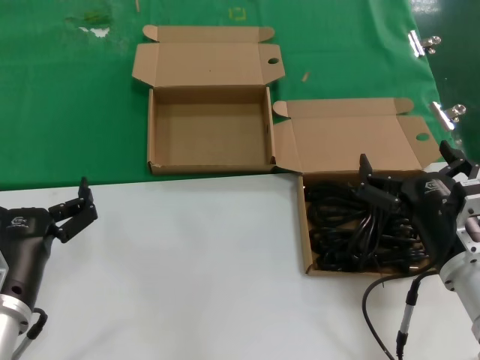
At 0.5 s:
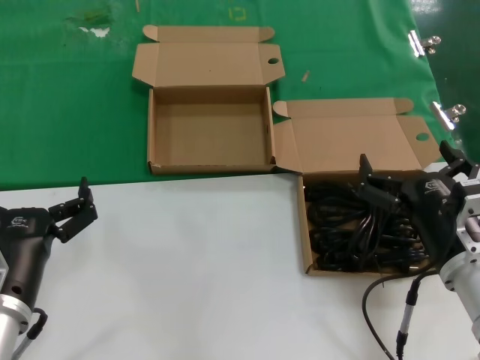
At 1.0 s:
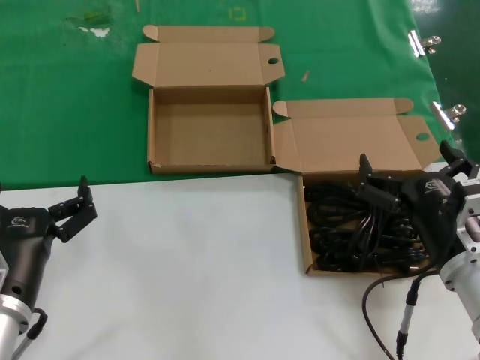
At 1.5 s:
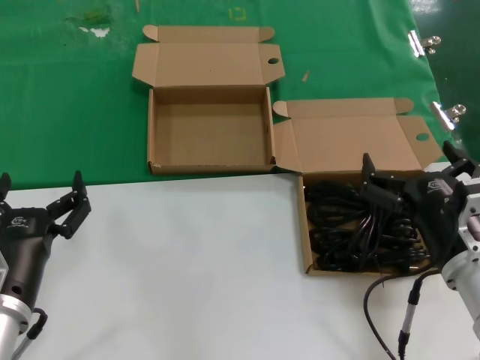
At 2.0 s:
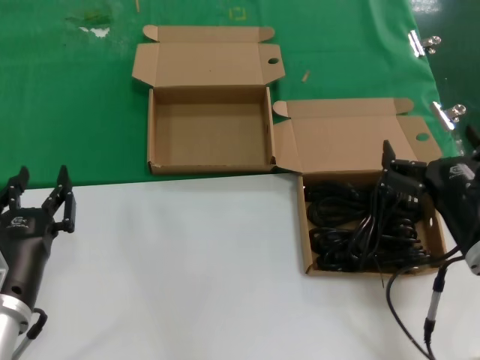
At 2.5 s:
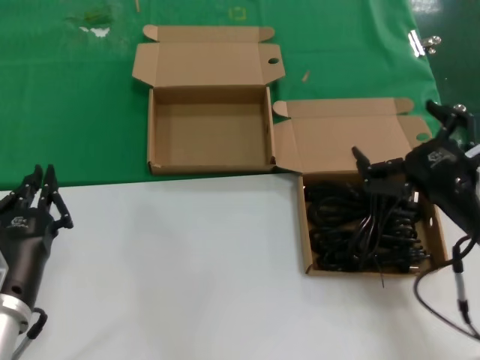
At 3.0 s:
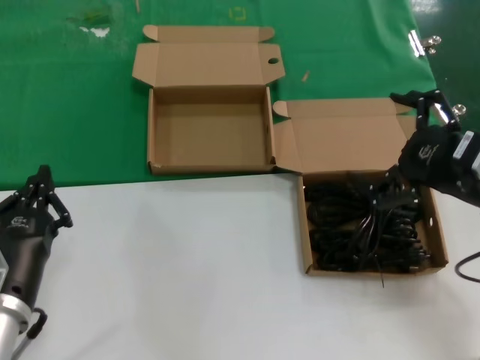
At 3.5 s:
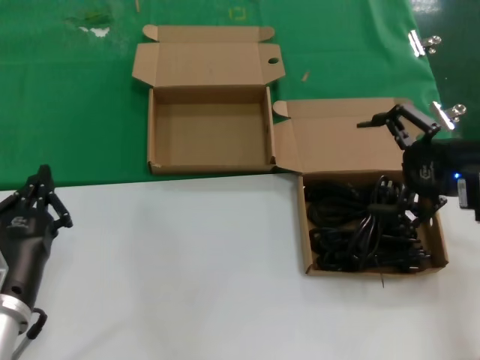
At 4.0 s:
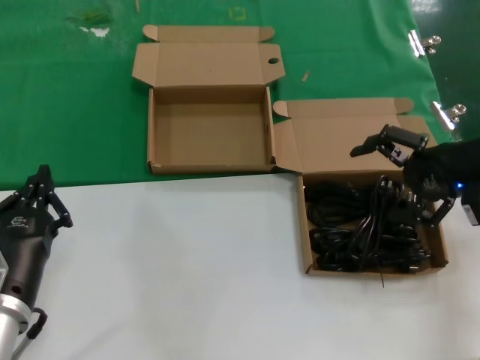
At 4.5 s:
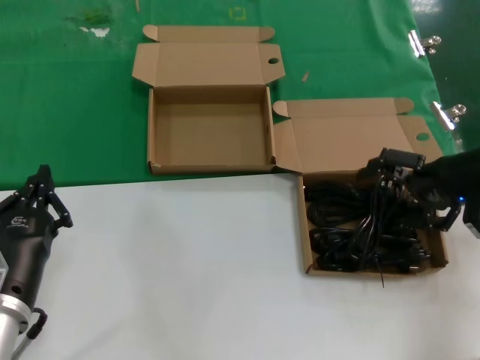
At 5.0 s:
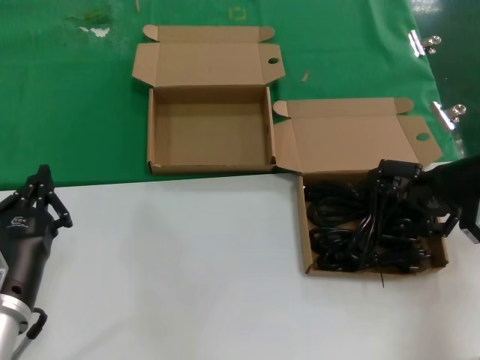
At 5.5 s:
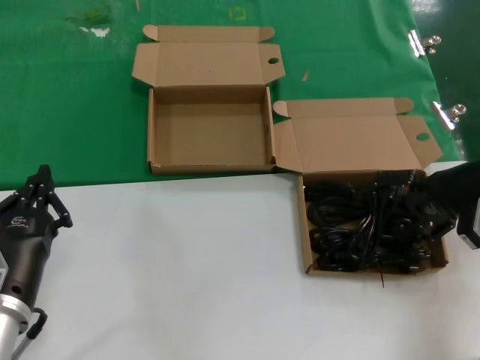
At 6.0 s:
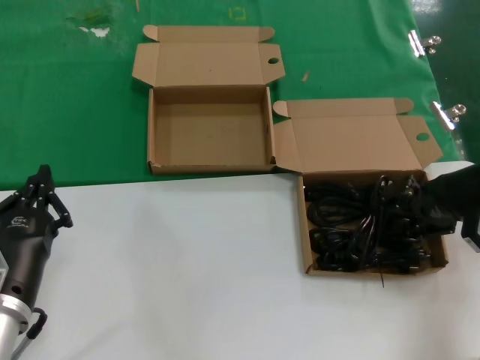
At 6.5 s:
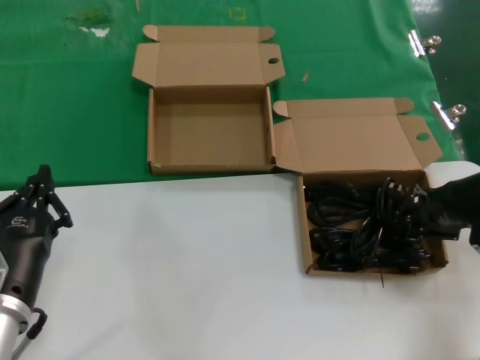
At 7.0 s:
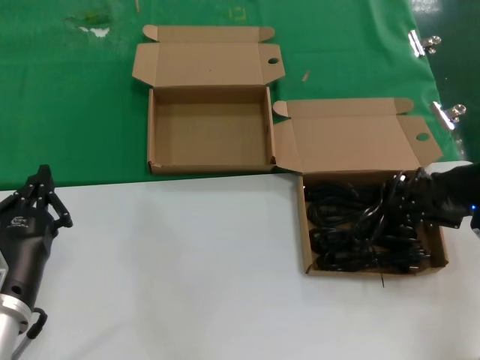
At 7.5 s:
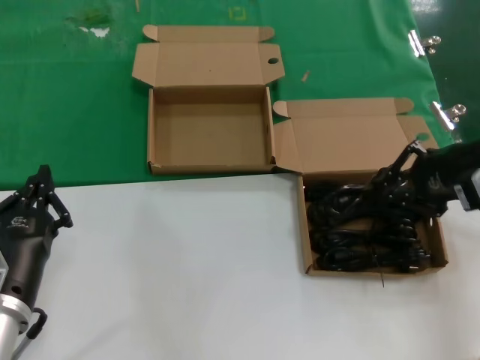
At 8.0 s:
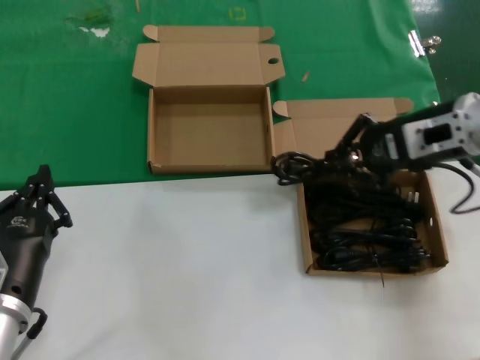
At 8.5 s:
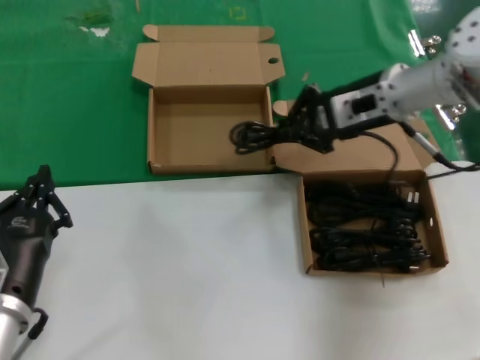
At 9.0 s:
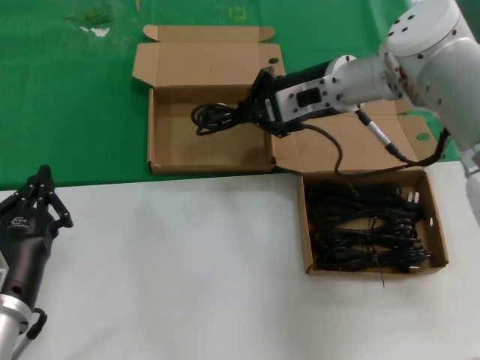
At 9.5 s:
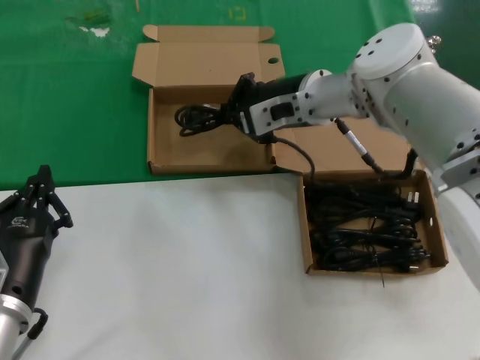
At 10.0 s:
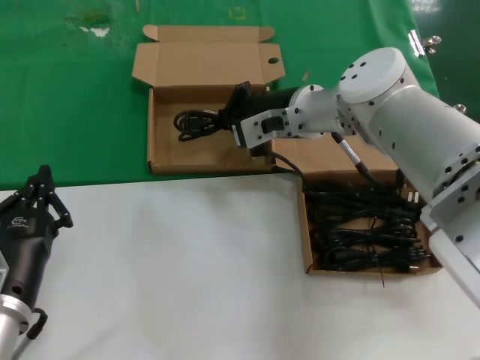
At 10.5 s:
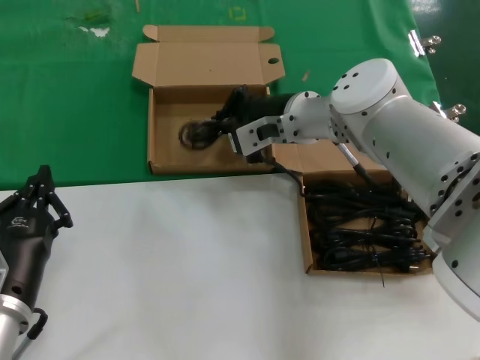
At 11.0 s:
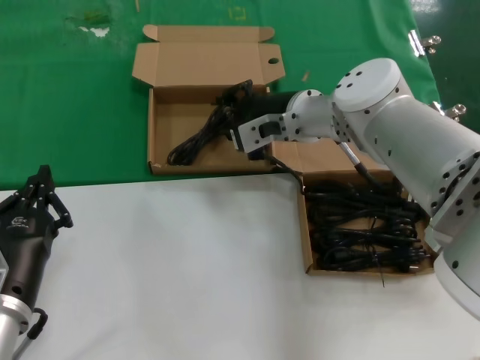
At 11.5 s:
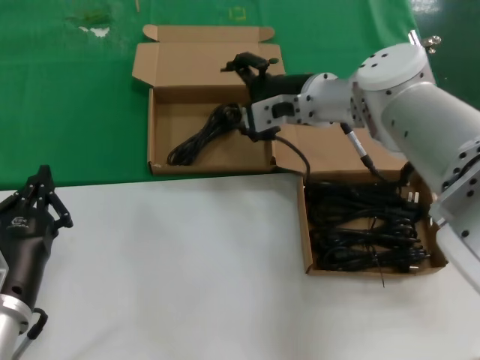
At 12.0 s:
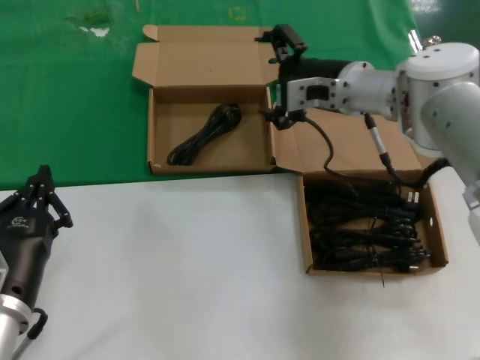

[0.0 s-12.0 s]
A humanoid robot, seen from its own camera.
Task of the whole recording: take the parts from the box containing them and put them into an empty box.
Step, 0.0 to 6.5 s: Grasp the data cable.
Step, 7.0 to 10.5 s: Place the data cable in the another box.
0.0 to 2.0 s: There are only small adjustments of the hands.
2.0 to 4.0 s: The right hand heads upward, forward and to the right, covering approximately 20 cm.
4.0 to 6.0 s: The right hand changes place by about 5 cm.
6.0 to 8.0 s: The right hand is displaced to the left and upward by about 10 cm.
8.0 to 10.0 s: The right hand goes about 20 cm to the left and forward.
10.0 to 12.0 s: The right hand moves to the right, about 5 cm.

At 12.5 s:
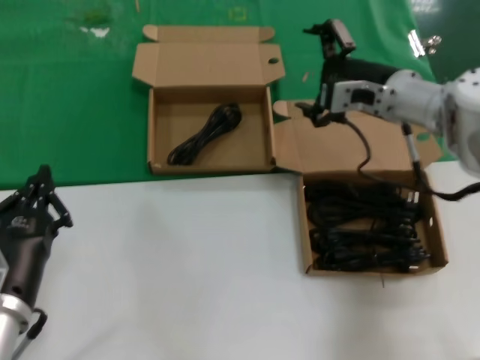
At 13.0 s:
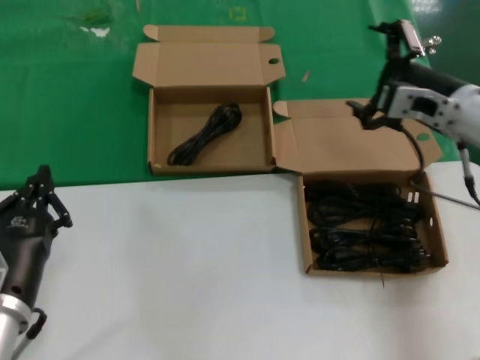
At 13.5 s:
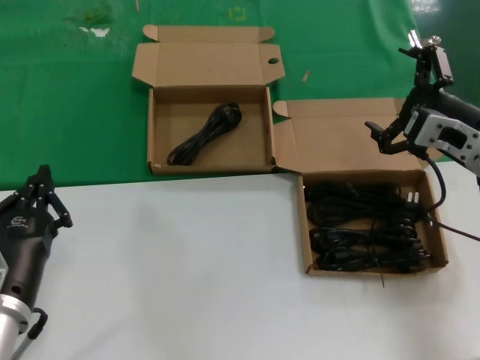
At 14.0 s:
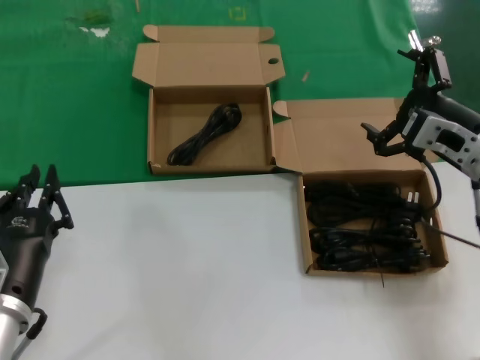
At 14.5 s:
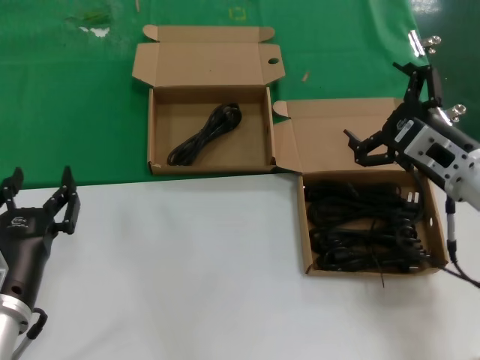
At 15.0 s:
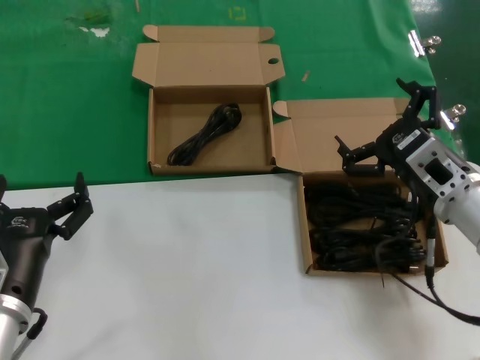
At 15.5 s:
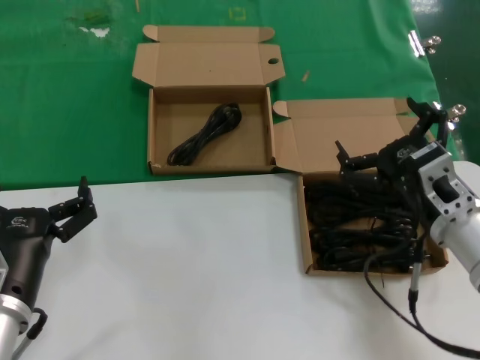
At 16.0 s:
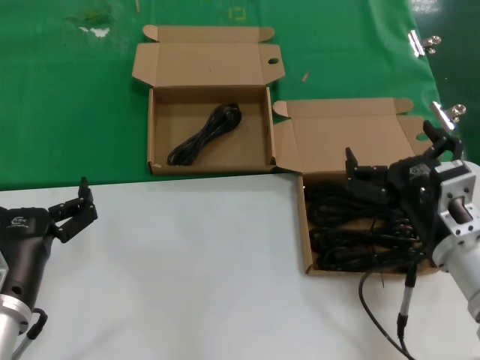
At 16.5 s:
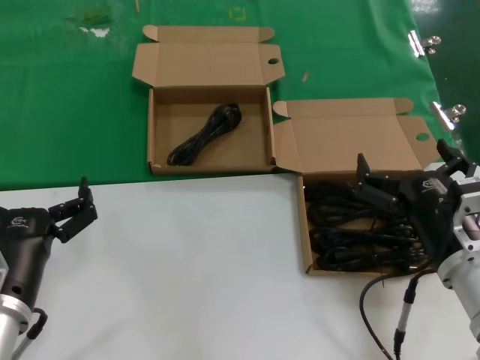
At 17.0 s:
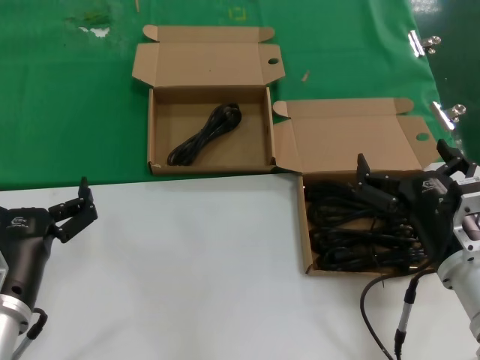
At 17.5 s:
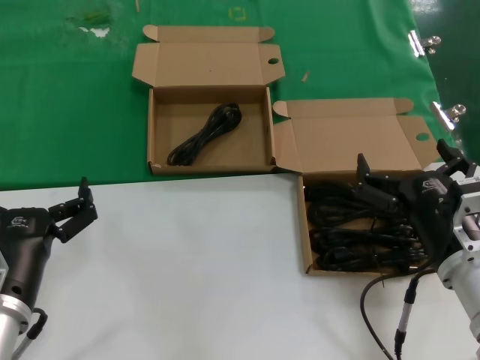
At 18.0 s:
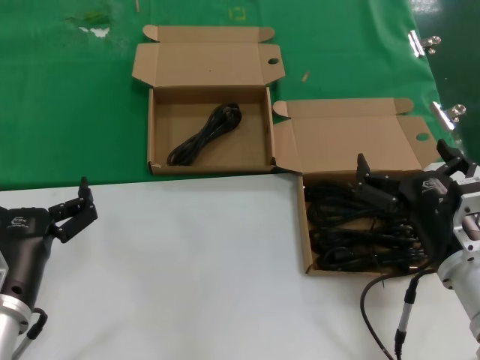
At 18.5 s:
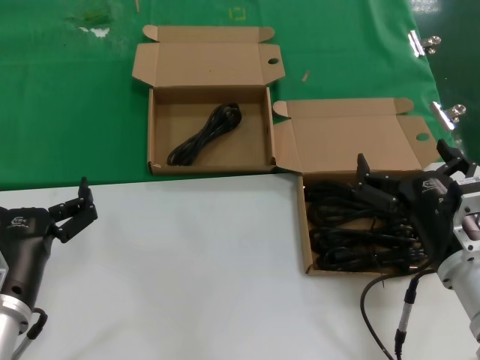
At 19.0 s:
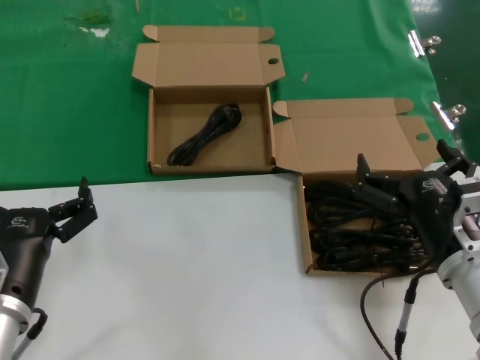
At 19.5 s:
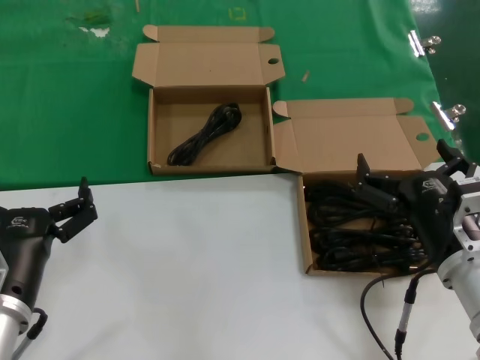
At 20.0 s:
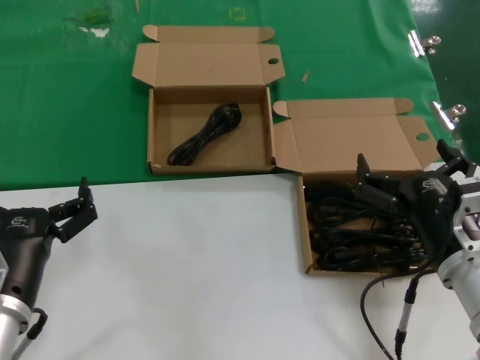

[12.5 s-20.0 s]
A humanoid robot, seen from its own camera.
Task of the whole recording: take the parts from the box containing them and put them into an empty box.
12.5 to 14.5 s: The right hand shifts roughly 15 cm backward.
14.5 to 16.5 s: The right hand goes about 15 cm backward, downward and to the left.
16.5 to 20.0 s: Both hands stay put.

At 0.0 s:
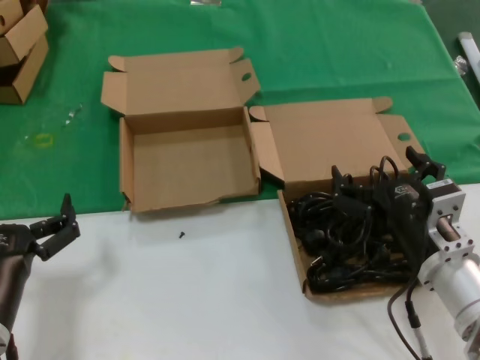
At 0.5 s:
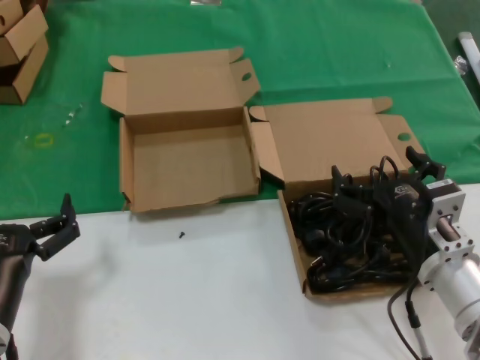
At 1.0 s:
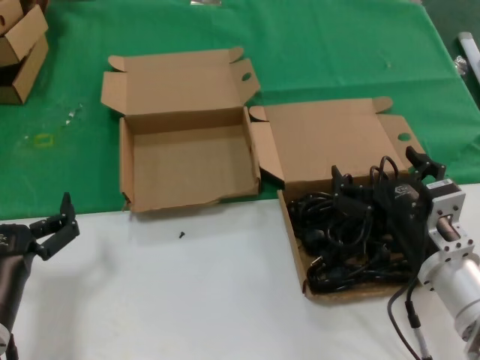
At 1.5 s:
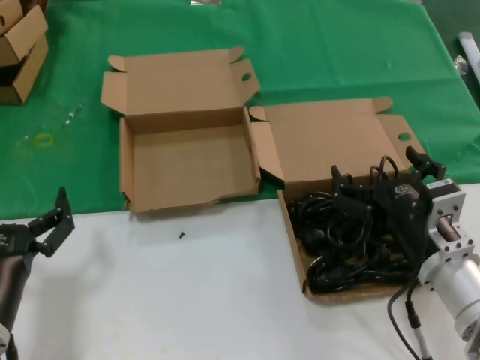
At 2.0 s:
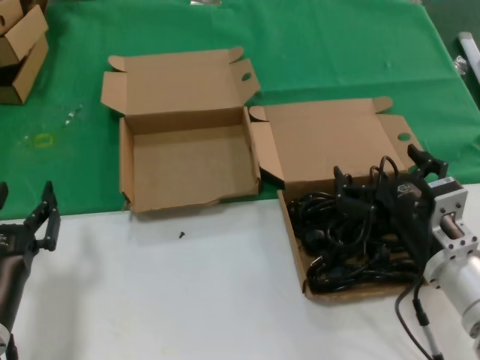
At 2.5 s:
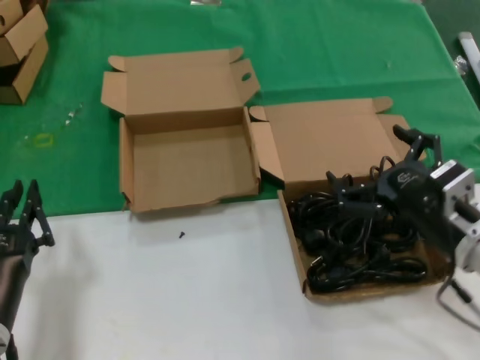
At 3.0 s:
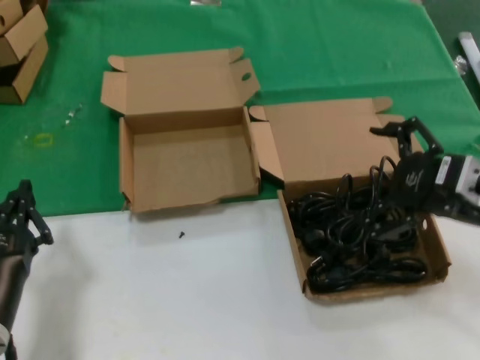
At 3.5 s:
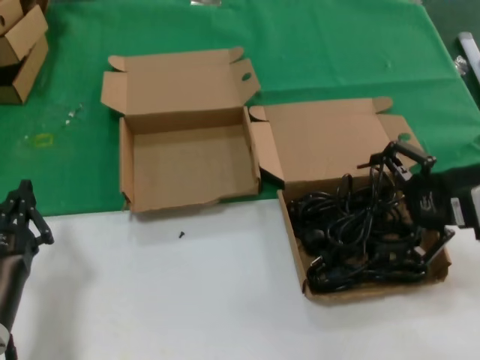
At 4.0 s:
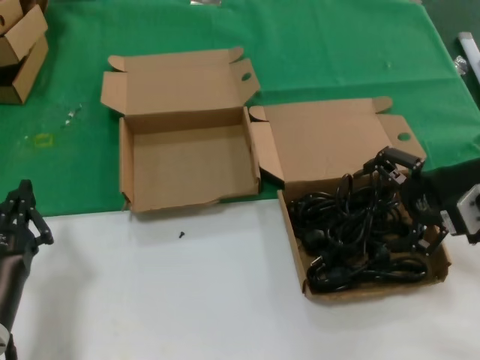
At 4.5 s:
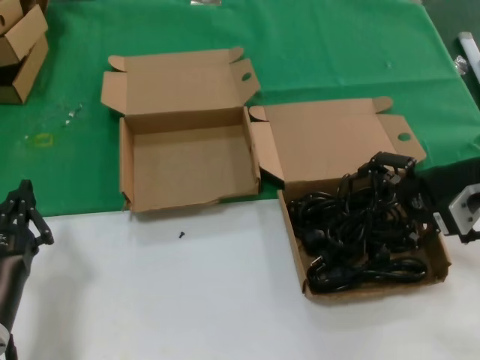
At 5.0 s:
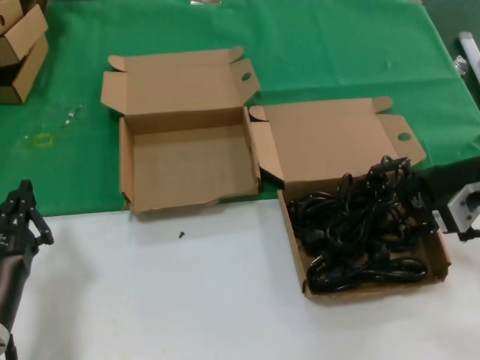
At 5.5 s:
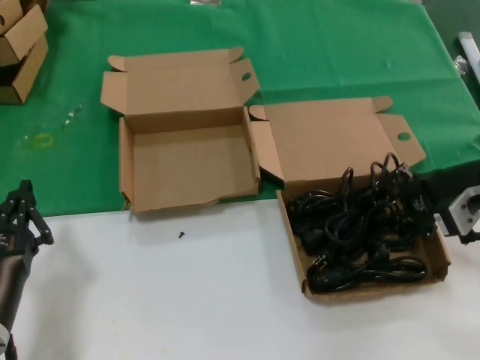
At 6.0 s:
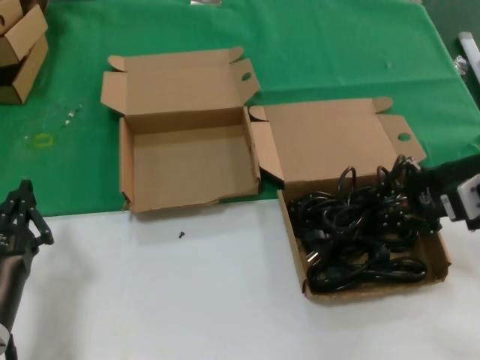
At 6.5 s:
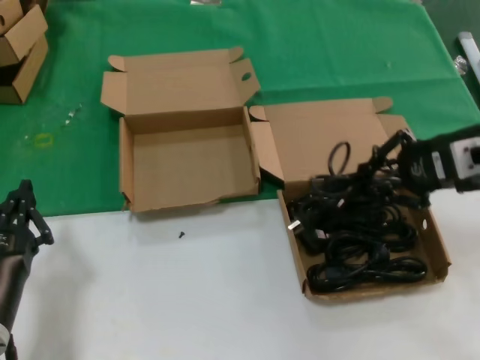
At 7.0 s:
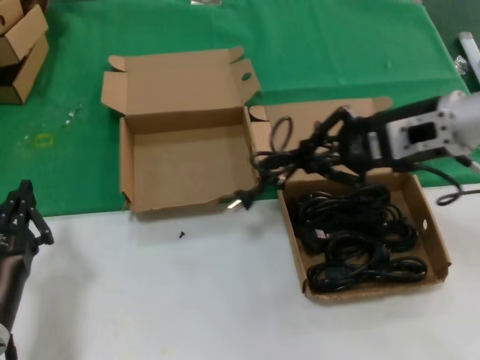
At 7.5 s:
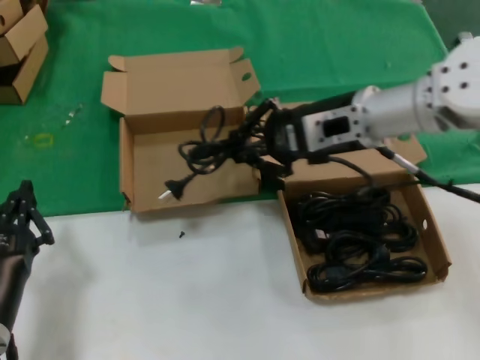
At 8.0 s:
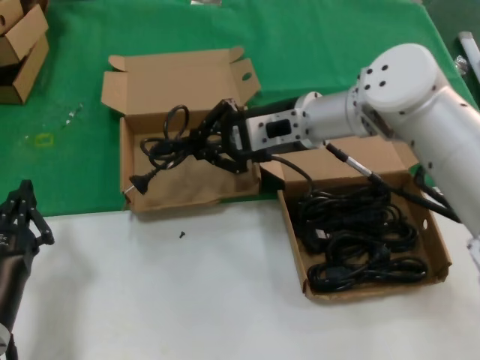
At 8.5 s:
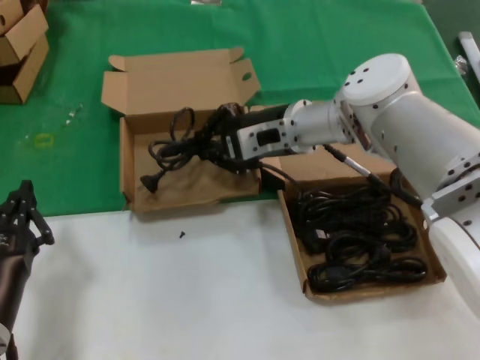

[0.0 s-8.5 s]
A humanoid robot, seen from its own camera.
Task of the whole recording: take the parts from the box containing them and put them into an empty box.
Step, 0.0 to 5.5 s: Grasp the data cable.
0.0 to 2.0 s: The two hands keep their place.
2.0 to 4.0 s: The right hand moves upward, to the right and forward, approximately 20 cm.
4.0 to 6.5 s: The hands stay close to where they were, moving slightly.
6.5 to 8.5 s: The right hand goes roughly 25 cm to the left and forward.
